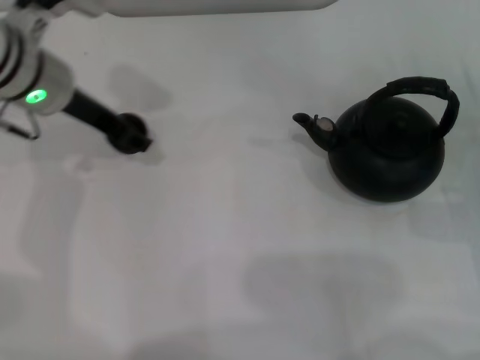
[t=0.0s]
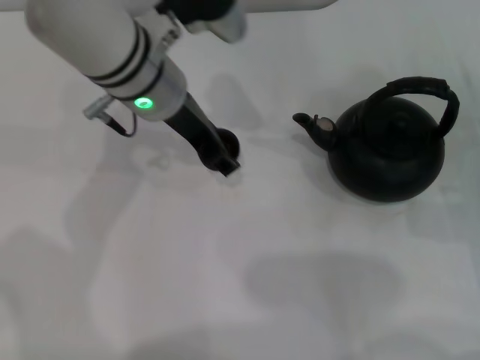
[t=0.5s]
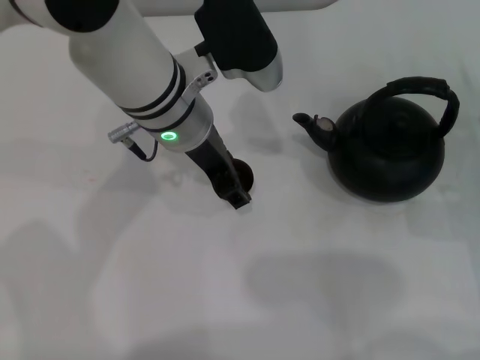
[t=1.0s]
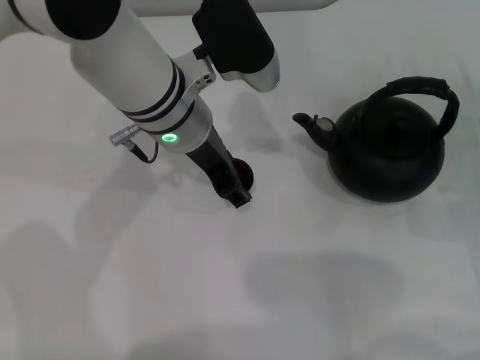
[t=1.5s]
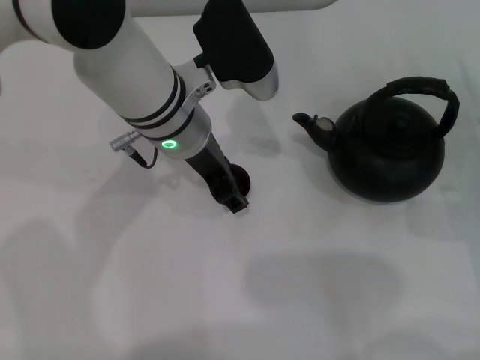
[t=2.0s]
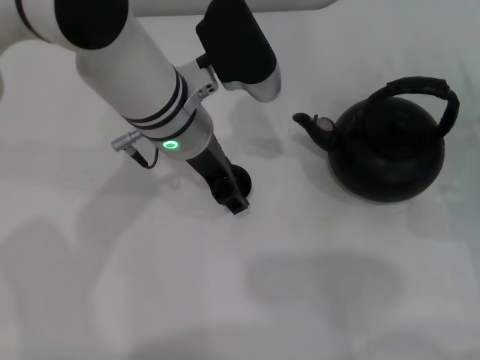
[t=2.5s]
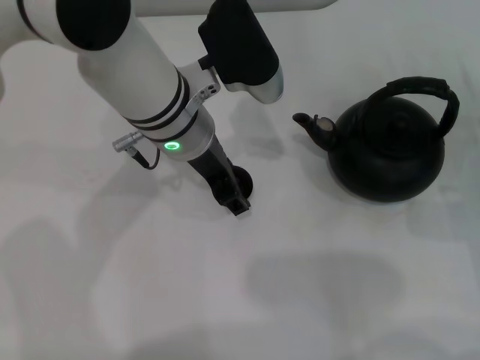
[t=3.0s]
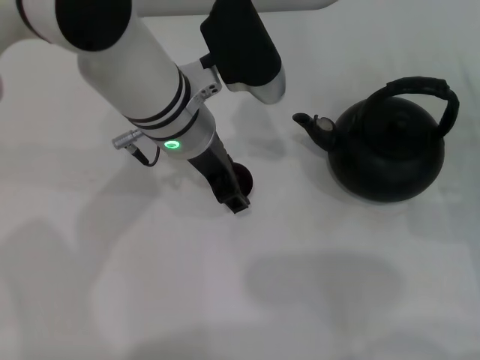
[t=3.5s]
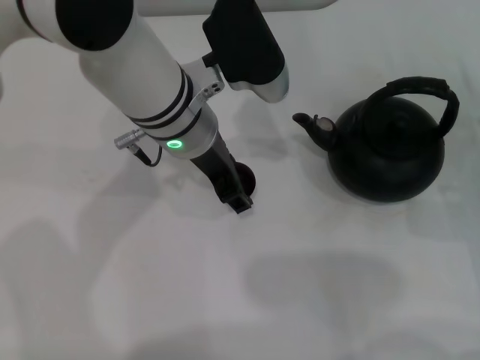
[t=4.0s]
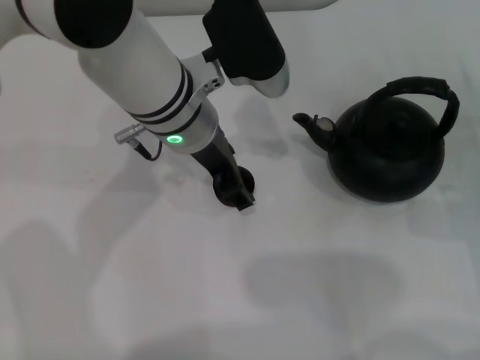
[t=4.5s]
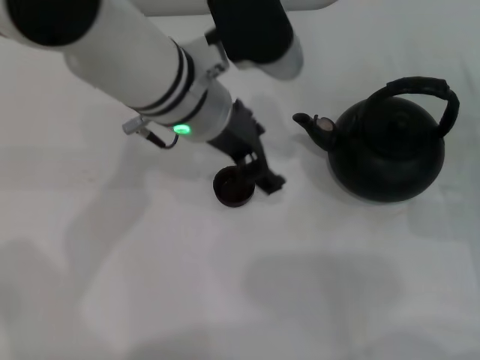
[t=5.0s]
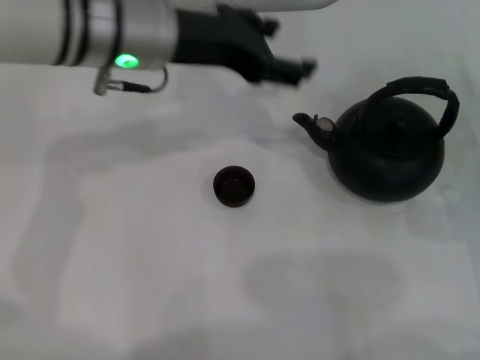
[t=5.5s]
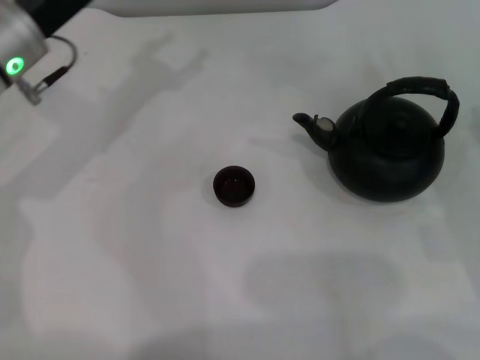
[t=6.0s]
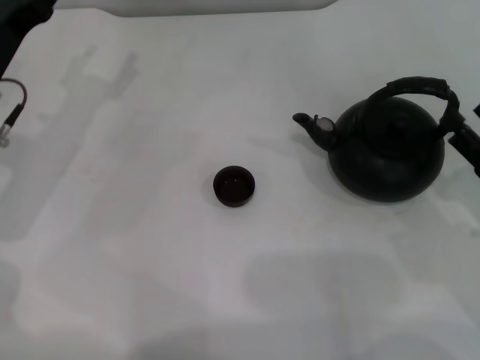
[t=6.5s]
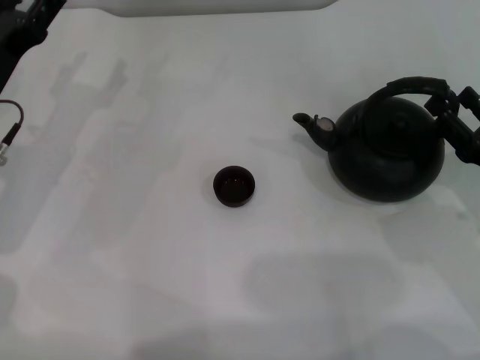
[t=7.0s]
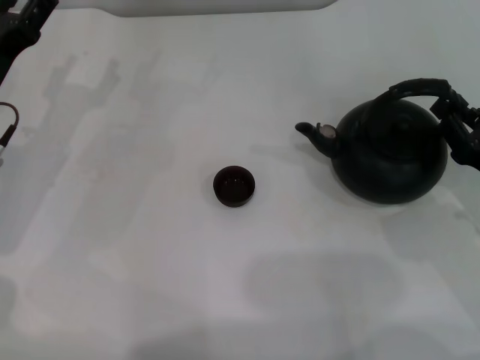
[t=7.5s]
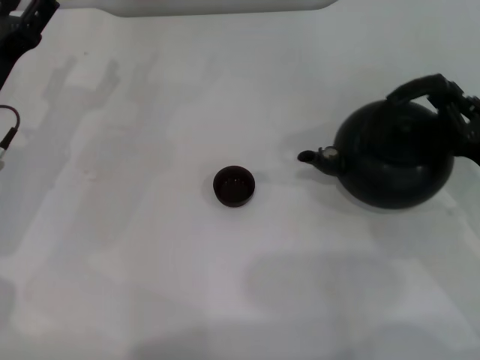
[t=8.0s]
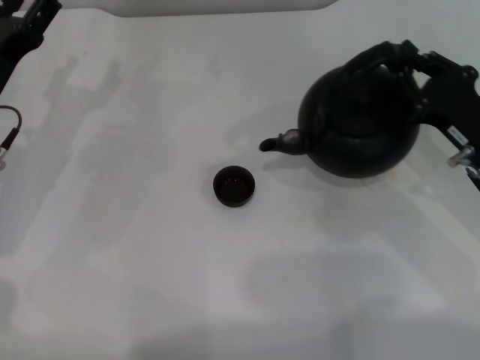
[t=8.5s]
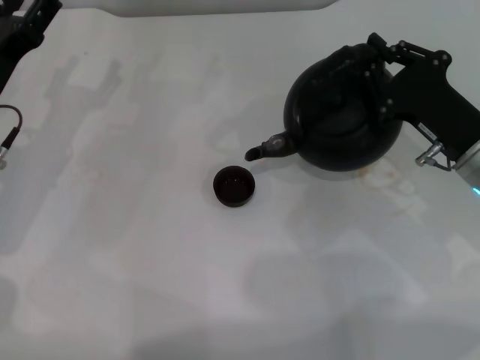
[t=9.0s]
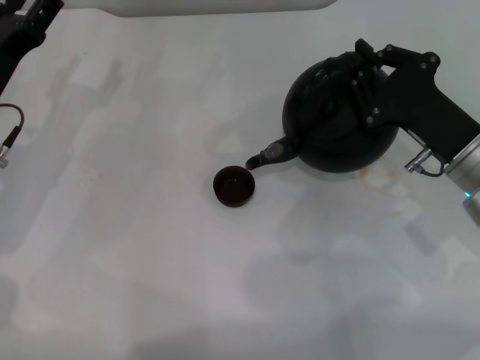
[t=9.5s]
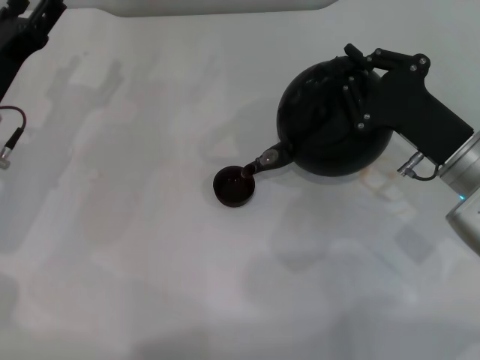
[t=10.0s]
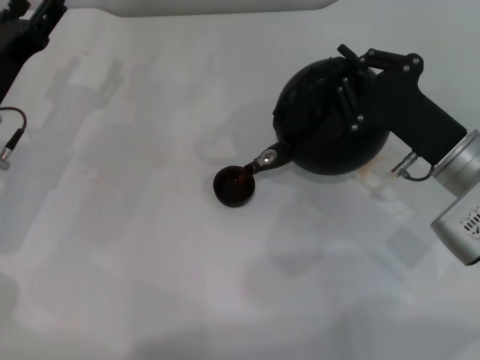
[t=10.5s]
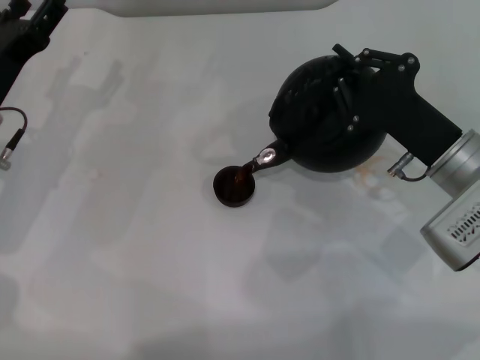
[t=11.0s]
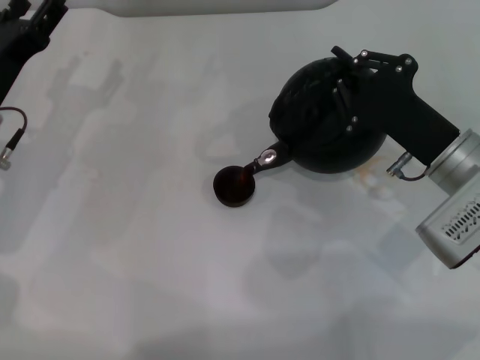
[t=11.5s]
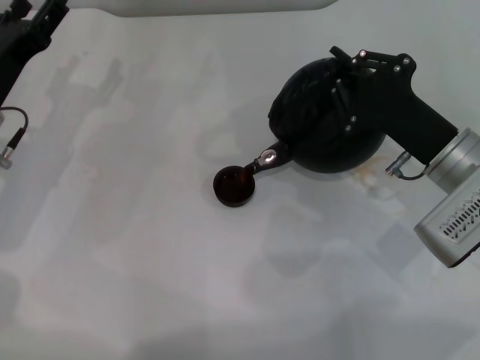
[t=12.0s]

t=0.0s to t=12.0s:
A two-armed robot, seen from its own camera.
Task of the whole recording: Grasp the handle of the teapot with one hand and pour tea into the teacup.
Step, t=0.0s to t=4.5s: Place the teacup in the center of view with the left gripper.
Step, t=5.0s to t=8.0s: Pick up the teapot with the right gripper.
t=0.0s to t=2.0s: The left gripper heads to the right, covering approximately 10 cm.
t=2.0s to t=4.0s: Both grippers stay put.
t=4.0s to t=6.0s: The left gripper goes roughly 15 cm to the left, and opens up.
t=6.0s to t=8.0s: The right gripper closes up, while the left gripper moves downward, roughly 5 cm.
t=8.0s to t=10.0s: The right gripper shifts approximately 5 cm to the left.
t=10.0s to t=12.0s: There are only small adjustments of the grippers.

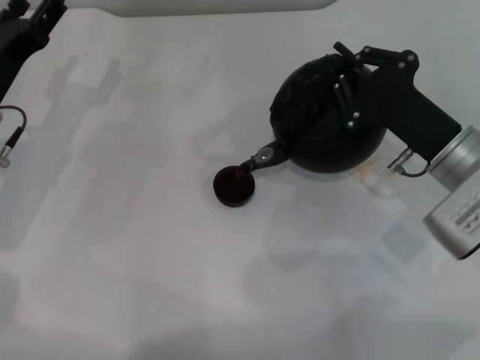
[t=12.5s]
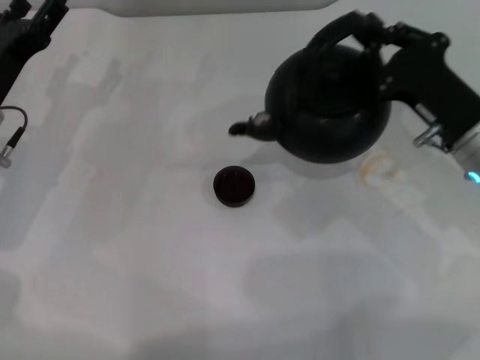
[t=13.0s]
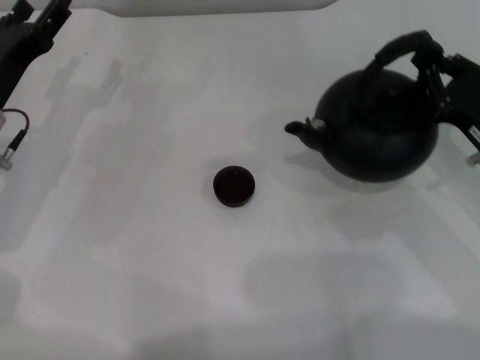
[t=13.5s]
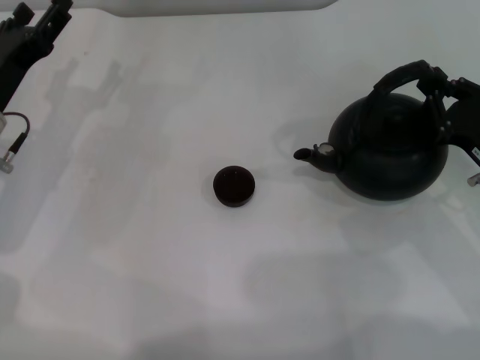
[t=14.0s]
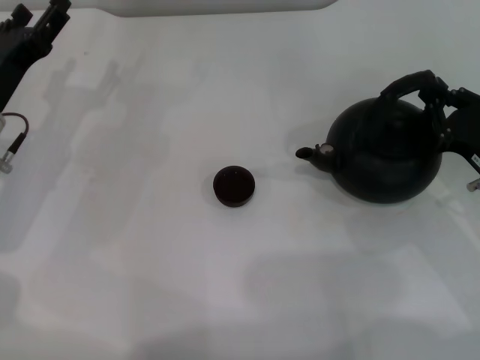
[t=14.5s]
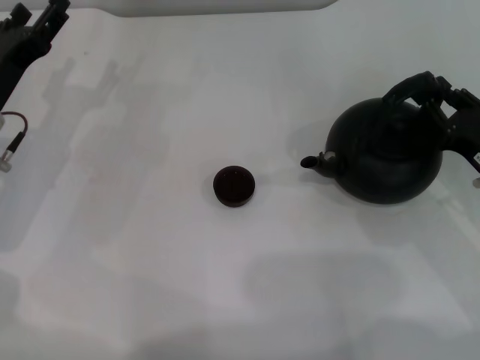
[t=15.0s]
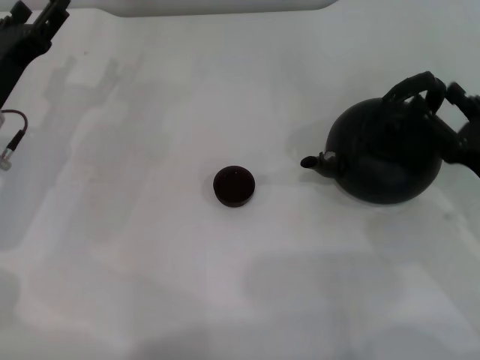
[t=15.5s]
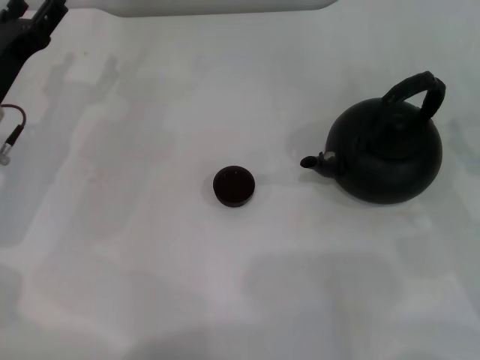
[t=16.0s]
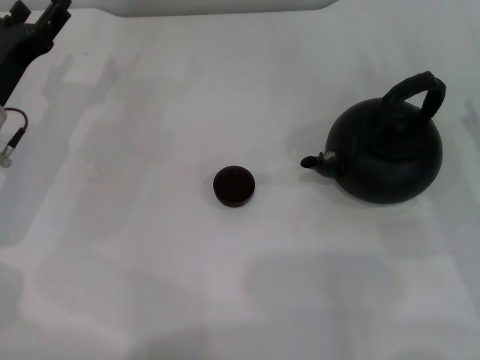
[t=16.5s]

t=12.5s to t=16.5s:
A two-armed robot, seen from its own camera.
Task of the whole recording: Grasp the handle of the teapot with one hand and pour tea into the teacup.
Step, t=13.0s to t=15.5s: Put down the teapot with the right gripper.
t=12.5s to t=14.5s: The right gripper is displaced to the right by some 5 cm.
t=14.5s to t=16.5s: The right gripper opens its fingers.
